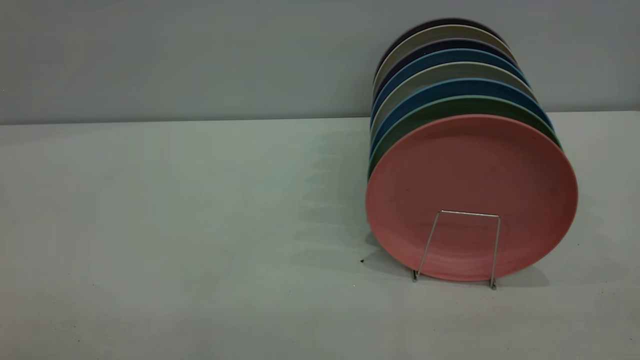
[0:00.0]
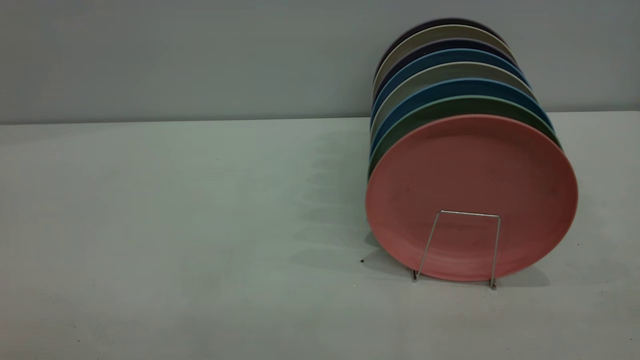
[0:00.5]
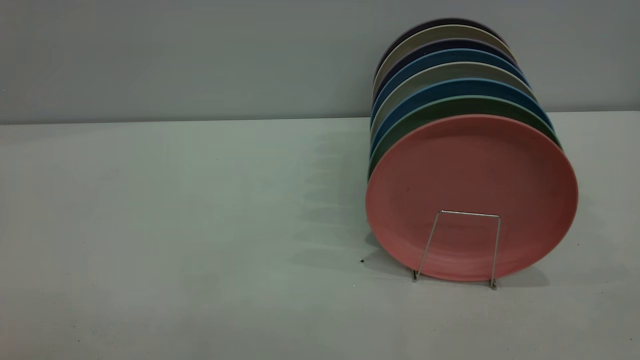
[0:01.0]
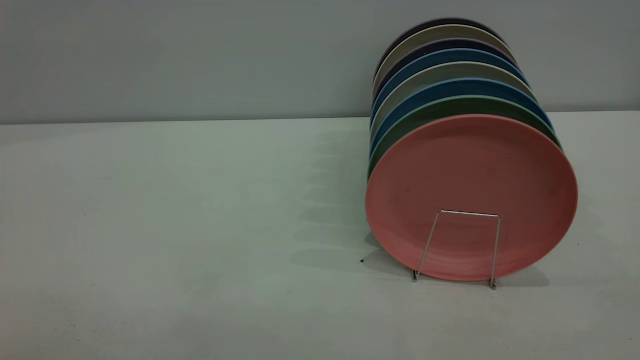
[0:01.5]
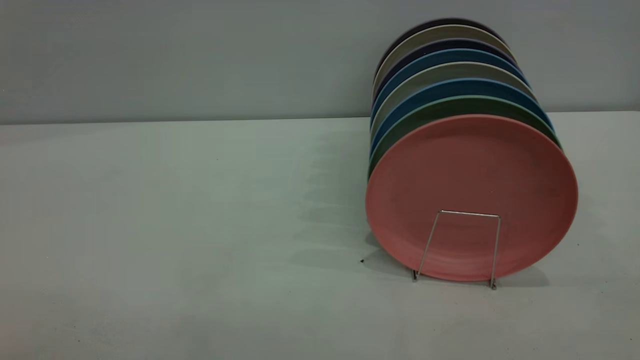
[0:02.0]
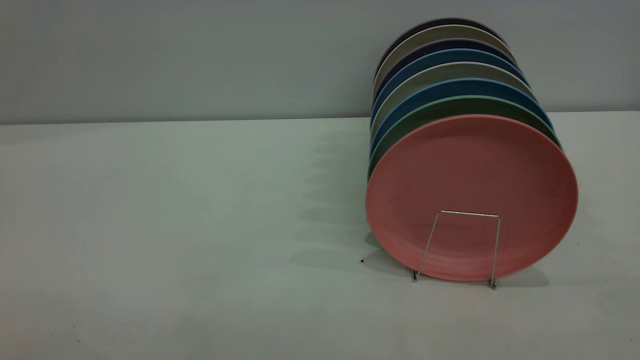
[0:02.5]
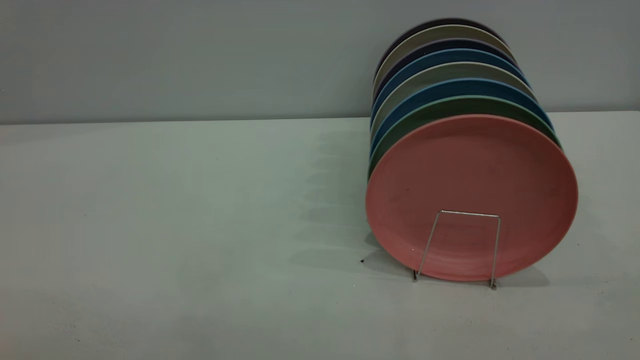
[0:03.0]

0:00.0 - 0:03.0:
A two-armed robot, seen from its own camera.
Task of the whole recording: put the plate on the plate rack.
0:01.5 - 0:03.0: Both grippers stay put.
